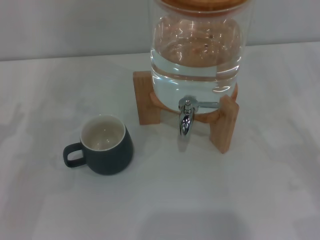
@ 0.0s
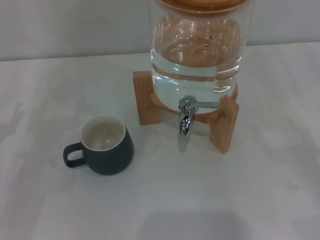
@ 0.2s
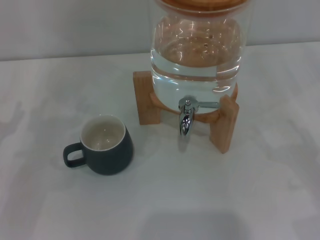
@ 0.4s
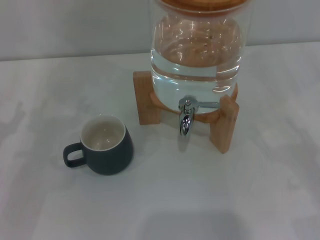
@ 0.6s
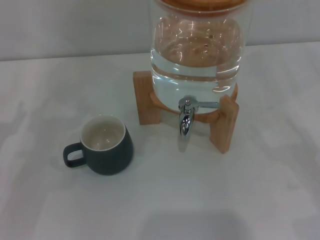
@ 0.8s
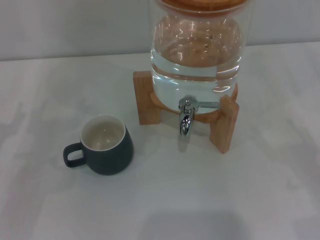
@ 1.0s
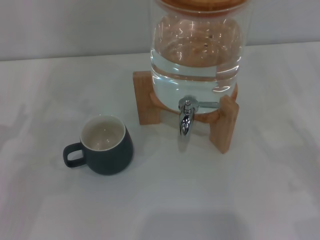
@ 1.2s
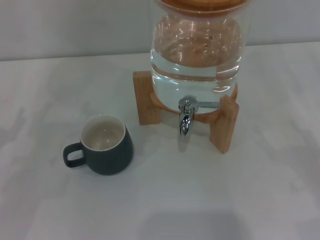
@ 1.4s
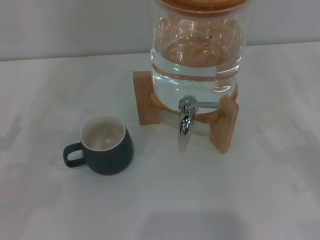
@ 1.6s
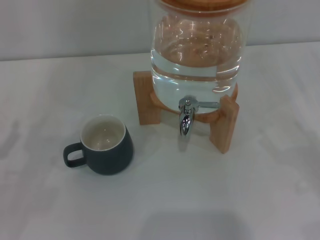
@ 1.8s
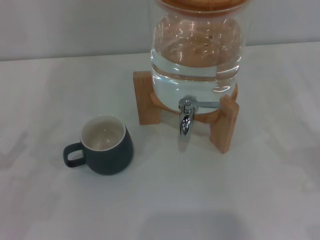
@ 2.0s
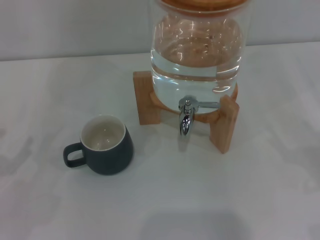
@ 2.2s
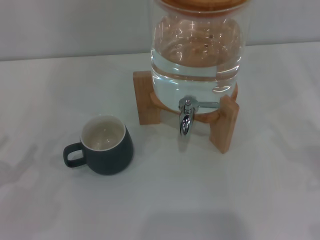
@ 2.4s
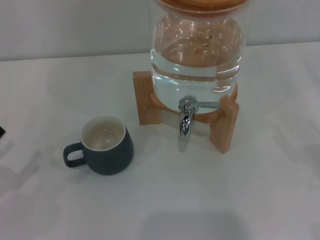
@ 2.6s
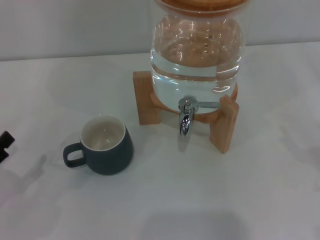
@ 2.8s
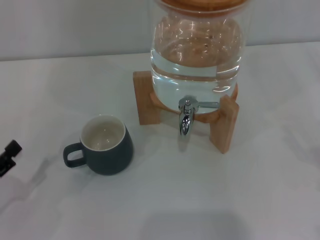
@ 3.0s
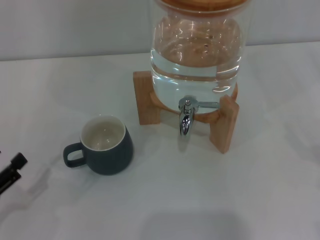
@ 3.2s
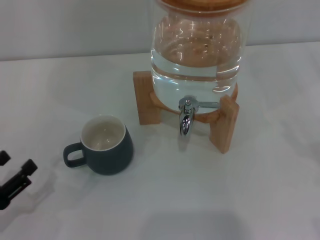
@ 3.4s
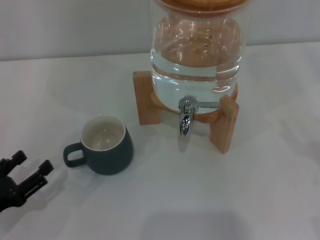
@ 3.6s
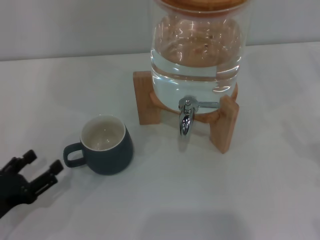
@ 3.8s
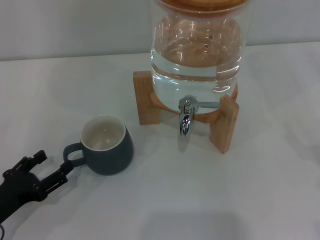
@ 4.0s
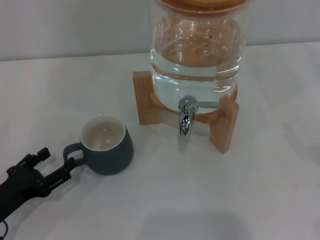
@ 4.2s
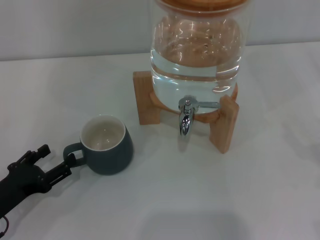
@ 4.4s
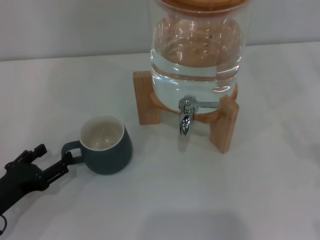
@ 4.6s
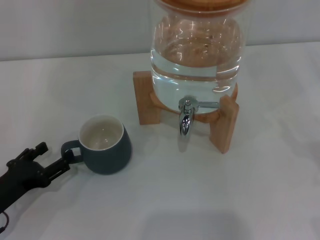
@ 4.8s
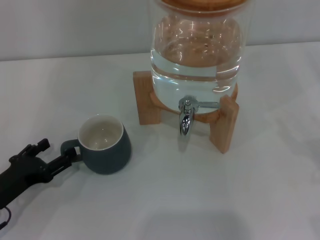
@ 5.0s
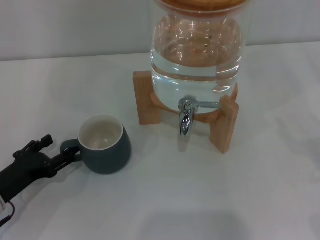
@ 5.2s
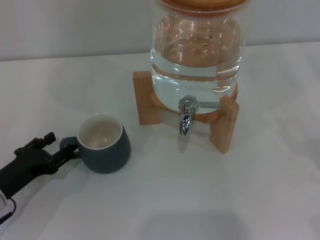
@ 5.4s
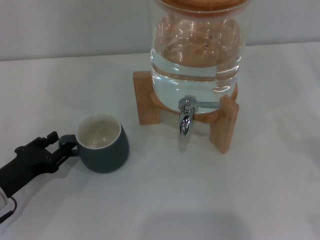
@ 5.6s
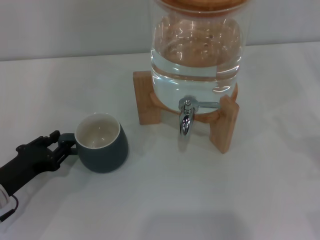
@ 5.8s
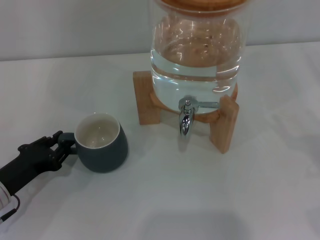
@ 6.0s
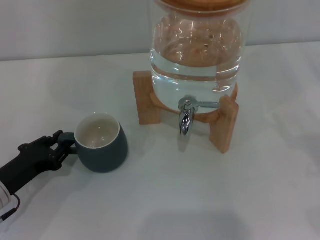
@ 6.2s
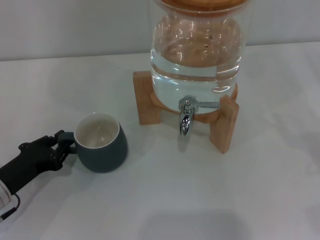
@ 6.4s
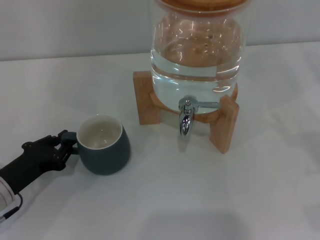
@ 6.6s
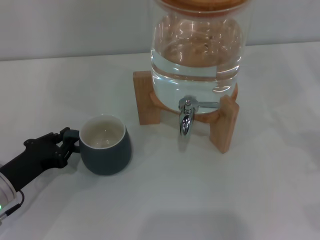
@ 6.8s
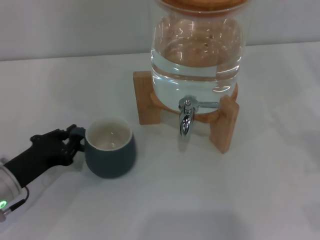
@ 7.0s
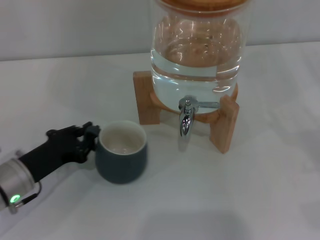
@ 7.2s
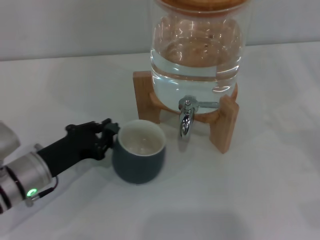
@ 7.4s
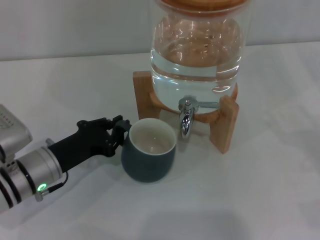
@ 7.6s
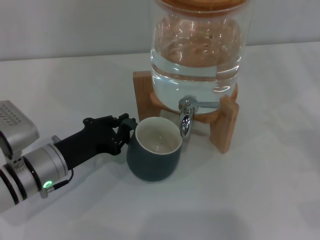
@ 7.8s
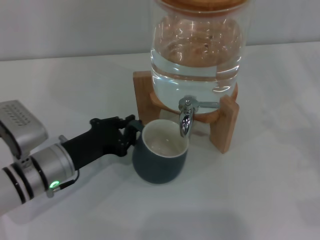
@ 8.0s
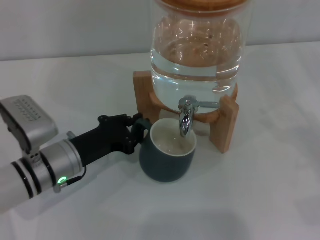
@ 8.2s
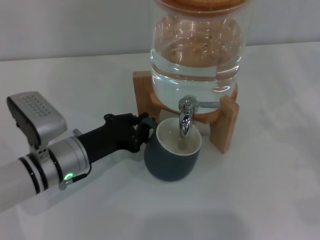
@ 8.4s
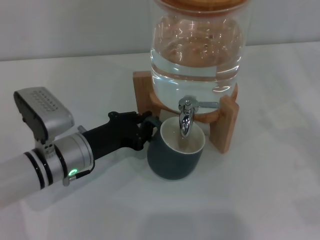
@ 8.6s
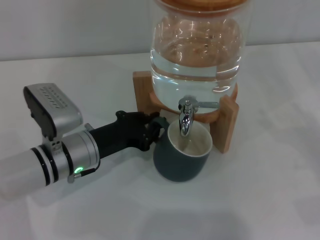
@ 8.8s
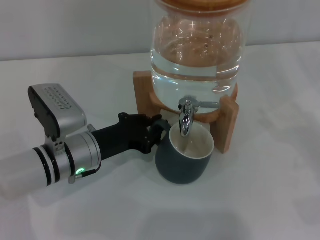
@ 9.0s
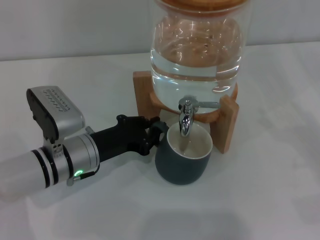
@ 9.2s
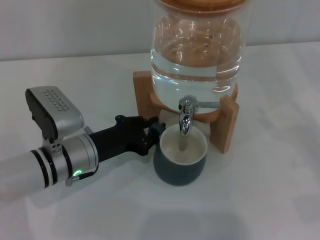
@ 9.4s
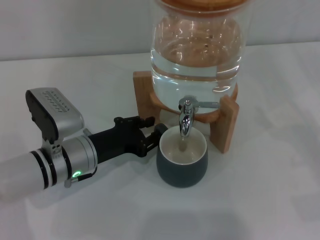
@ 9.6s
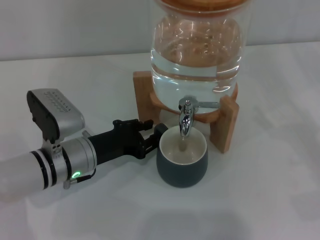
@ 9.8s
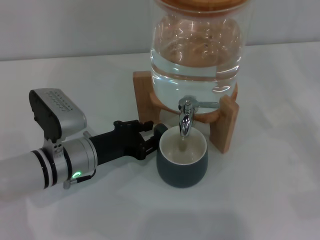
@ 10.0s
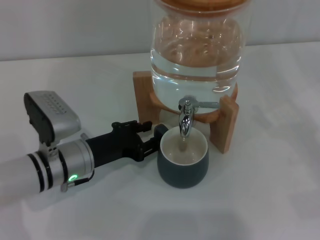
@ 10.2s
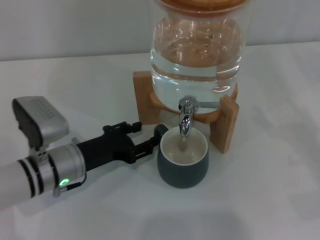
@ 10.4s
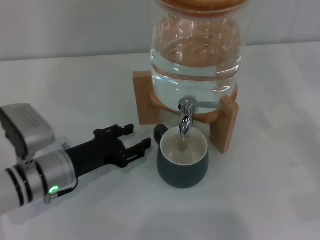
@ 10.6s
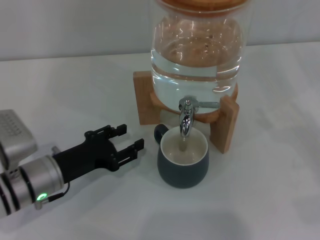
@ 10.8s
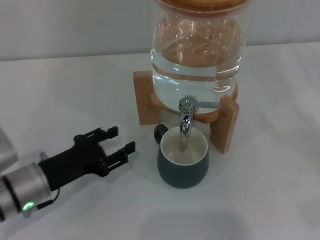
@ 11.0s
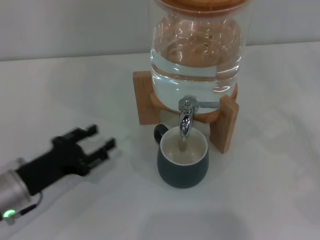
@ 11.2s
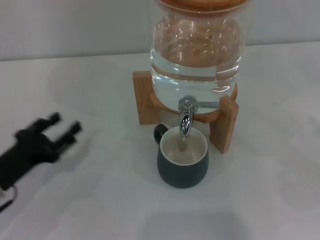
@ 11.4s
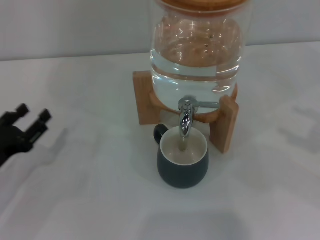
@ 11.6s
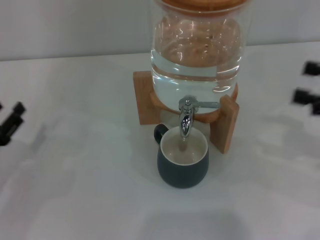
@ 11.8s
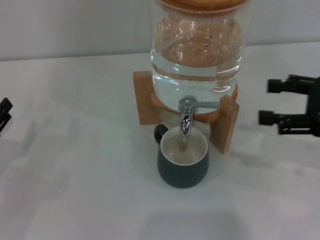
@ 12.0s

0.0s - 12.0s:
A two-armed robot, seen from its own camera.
Task of the whole recording: the left gripper pick up the black cup and place it horizontally under the faucet, the right gripper turn on the faucet to fill the cup, and then turn off the faucet.
Step, 0.0s - 10.4s: Move the cup beneath the water dispenser nozzle with the left gripper.
1.6s - 3.0s: The left gripper travels backward by some 5 cm.
3.0s - 4.4s: The left gripper moves about 5 cm.
4.4s - 6.0s: The left gripper closes.
6.0s - 7.6s: The left gripper goes about 5 cm to the right, and closes.
7.6s - 9.0s: The left gripper shifts about 5 cm to the right.
9.0s - 10.4s: The left gripper opens.
10.4s - 12.0s: The left gripper travels to the left by about 15 cm. The right gripper goes about 15 cm upward and to the left.

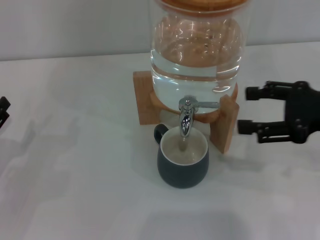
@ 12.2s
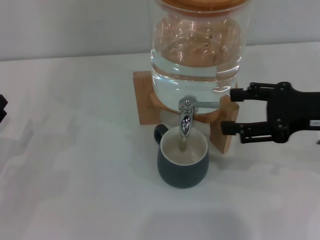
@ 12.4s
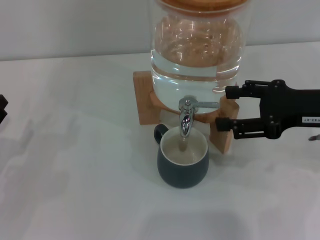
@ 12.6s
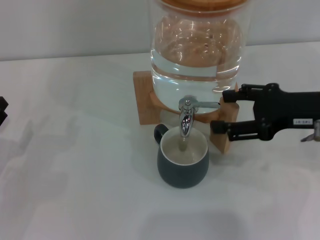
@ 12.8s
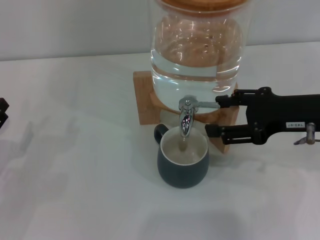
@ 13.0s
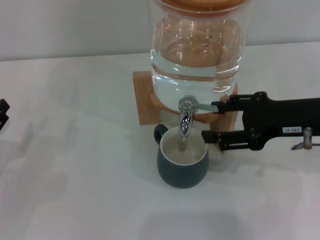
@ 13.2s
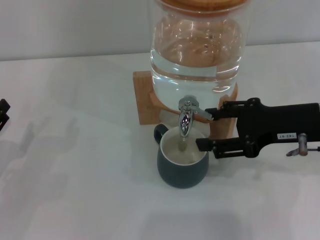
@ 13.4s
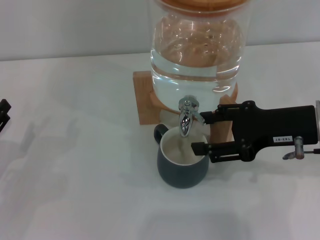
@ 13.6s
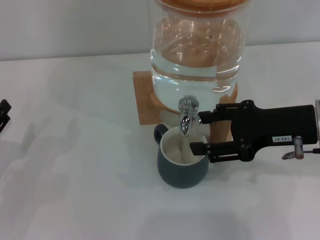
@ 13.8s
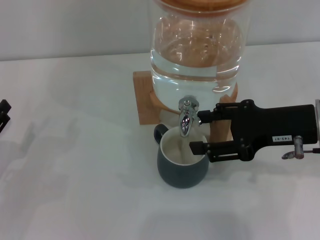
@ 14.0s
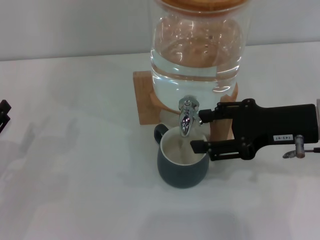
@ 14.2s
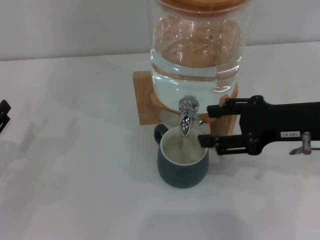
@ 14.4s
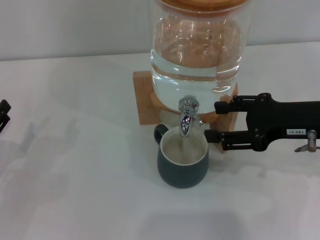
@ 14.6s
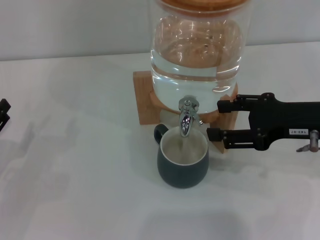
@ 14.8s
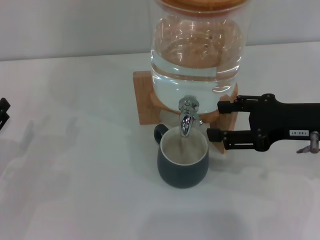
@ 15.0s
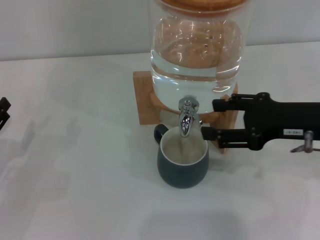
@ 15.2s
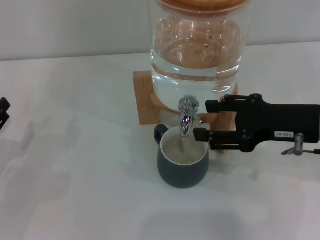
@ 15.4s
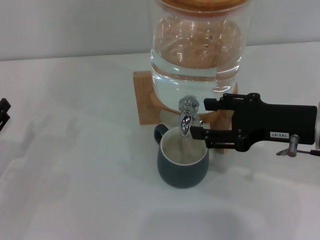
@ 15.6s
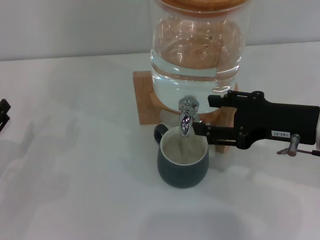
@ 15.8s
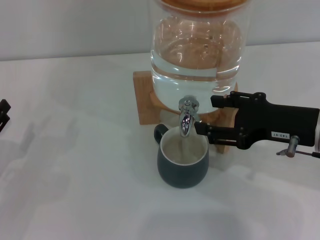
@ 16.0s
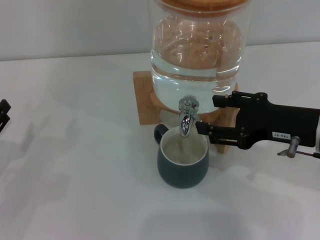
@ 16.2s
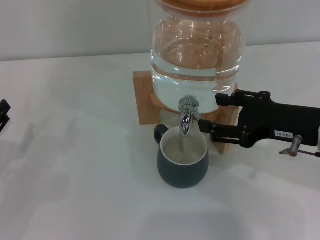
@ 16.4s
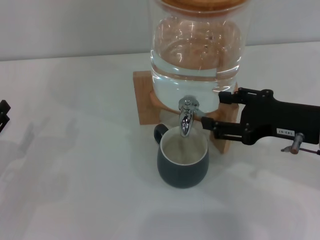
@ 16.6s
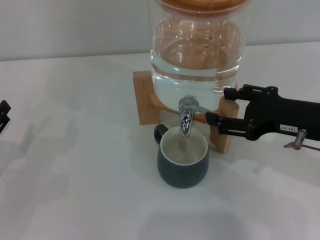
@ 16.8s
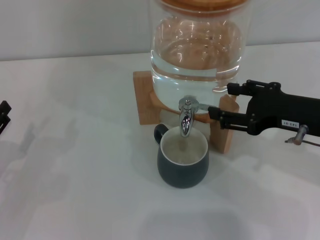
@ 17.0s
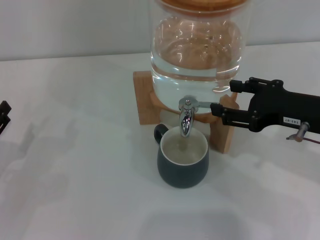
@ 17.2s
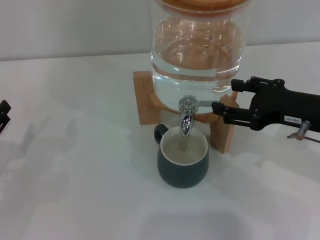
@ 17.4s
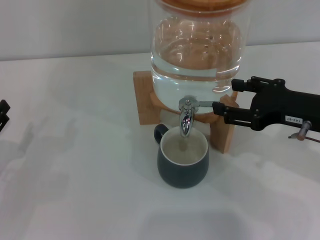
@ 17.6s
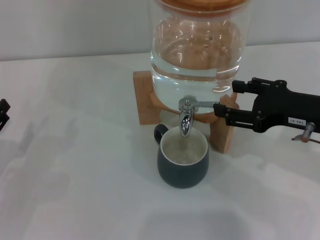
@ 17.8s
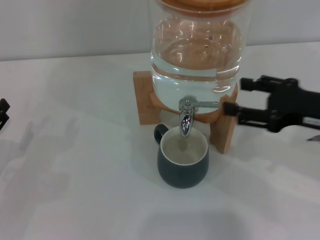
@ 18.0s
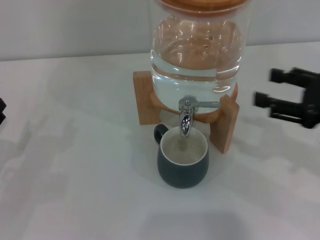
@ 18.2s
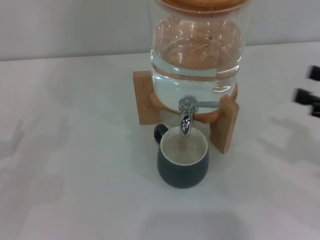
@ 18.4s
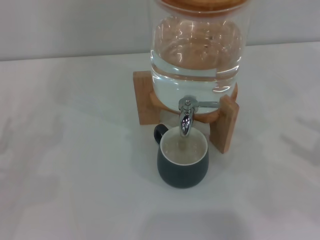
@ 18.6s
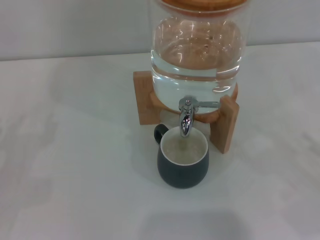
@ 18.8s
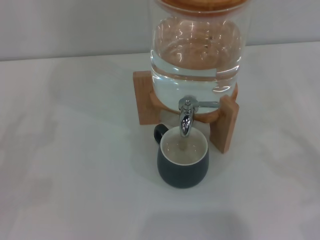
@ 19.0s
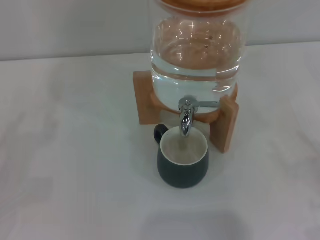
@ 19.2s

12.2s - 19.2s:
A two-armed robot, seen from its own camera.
Task of the whole recording: the left gripper pick up the black cup and place it horizontally under the faucet, the right gripper turn on the faucet to fill the cup, and then turn off the faucet.
Step, 12.2s - 14.4s: Open the dispenser valve and fill the cup with water with the right gripper.
Step, 14.6s - 17.8s: Close the dispenser valve with the right gripper.
12.2s - 13.6s: The right gripper is displaced to the left by roughly 5 cm.
13.6s - 16.4s: The grippers make only small movements.
16.4s - 17.8s: The grippers stay close to where they were, moving slightly.
17.8s - 19.2s: The right gripper is displaced to the right, downward and backward by about 20 cm.

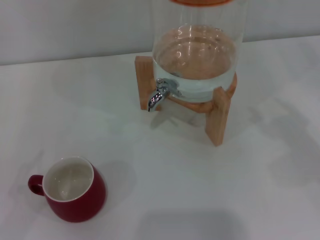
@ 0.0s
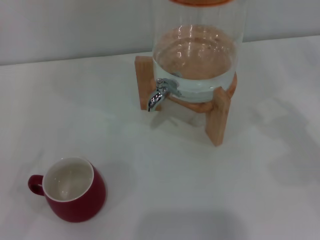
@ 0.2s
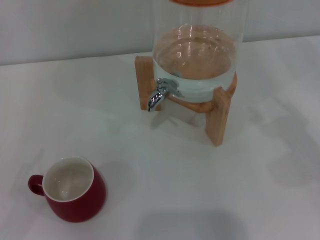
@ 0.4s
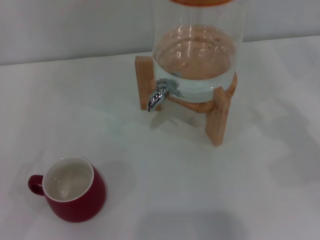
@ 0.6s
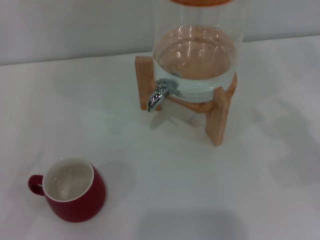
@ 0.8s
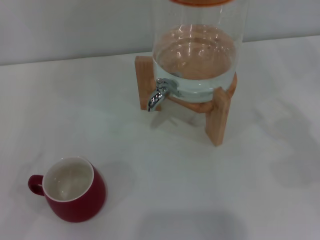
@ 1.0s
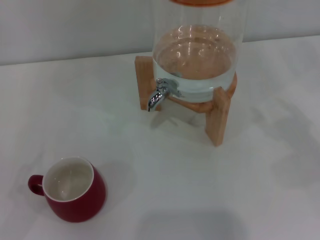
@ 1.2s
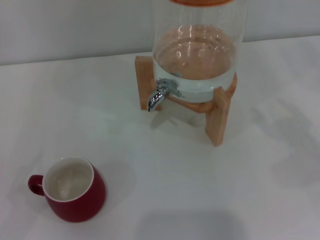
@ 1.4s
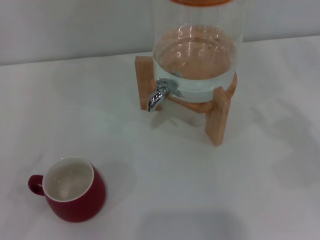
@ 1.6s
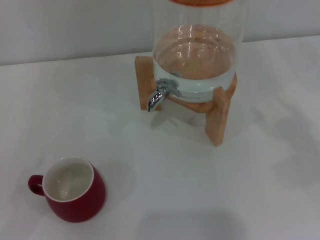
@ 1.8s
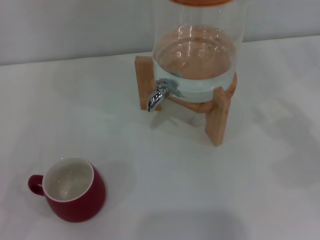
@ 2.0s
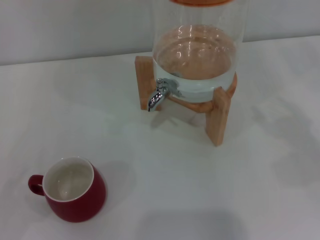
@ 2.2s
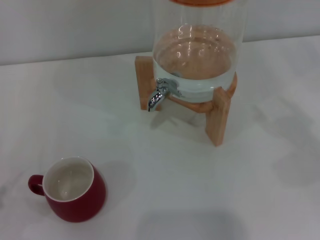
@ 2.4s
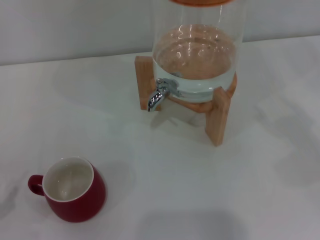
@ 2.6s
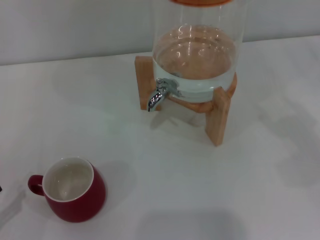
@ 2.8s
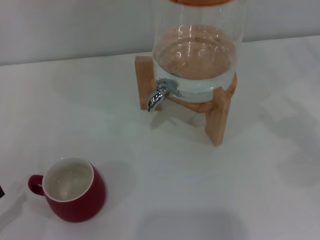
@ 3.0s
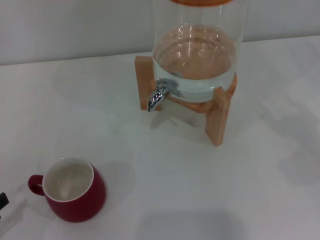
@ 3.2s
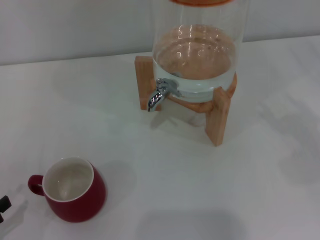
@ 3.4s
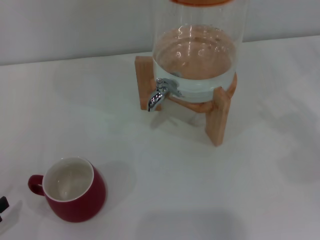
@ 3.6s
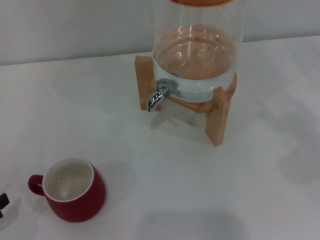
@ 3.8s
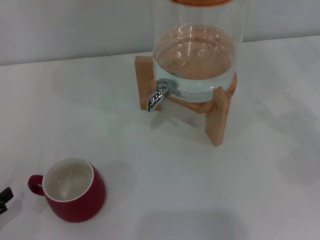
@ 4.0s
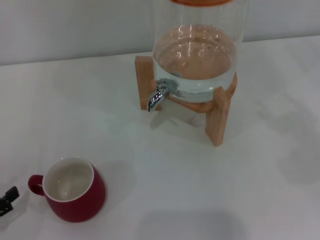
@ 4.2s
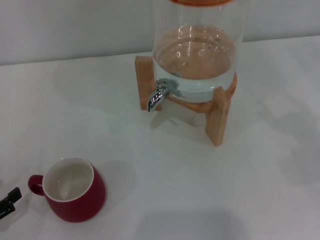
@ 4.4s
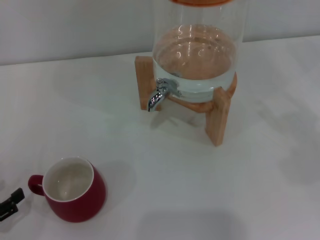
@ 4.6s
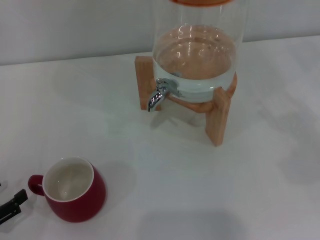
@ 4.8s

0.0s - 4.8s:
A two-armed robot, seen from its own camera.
Task of the whole recording: the left gripper pick up the red cup and place it horizontally under the faucet, the right gripper turn on the faucet to fill the cup, and then turn off the faucet.
0.0s - 1.6s: Both grippers stay about where they are.
